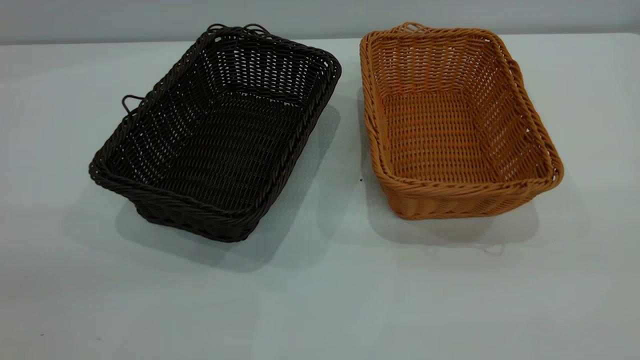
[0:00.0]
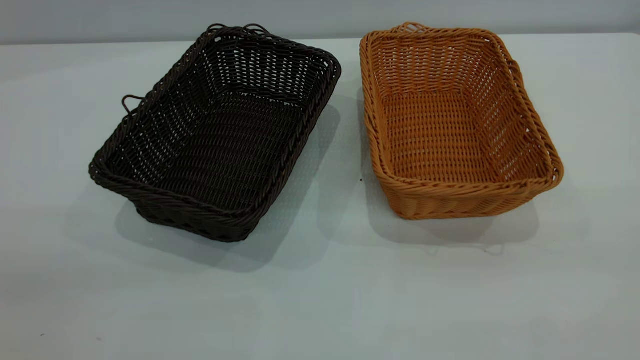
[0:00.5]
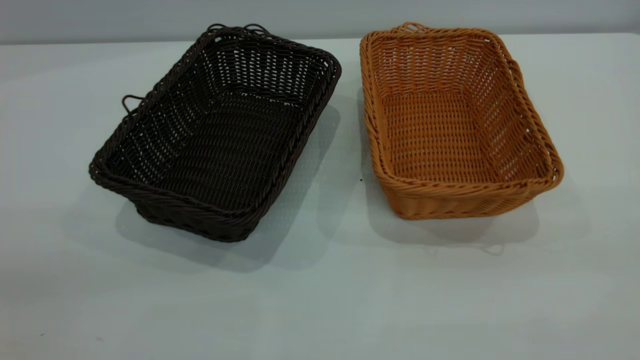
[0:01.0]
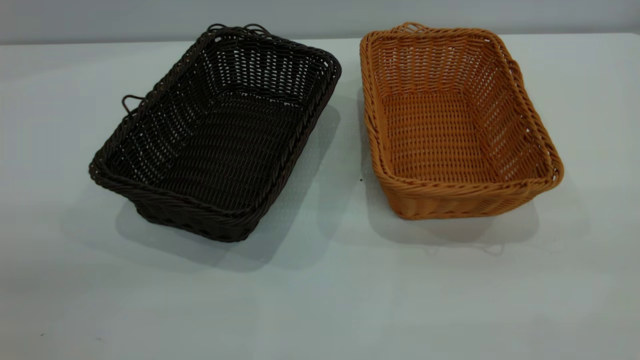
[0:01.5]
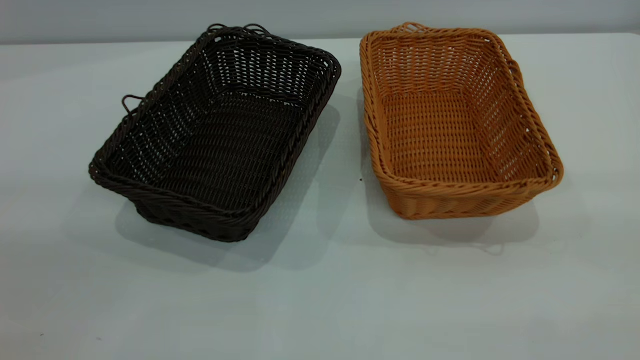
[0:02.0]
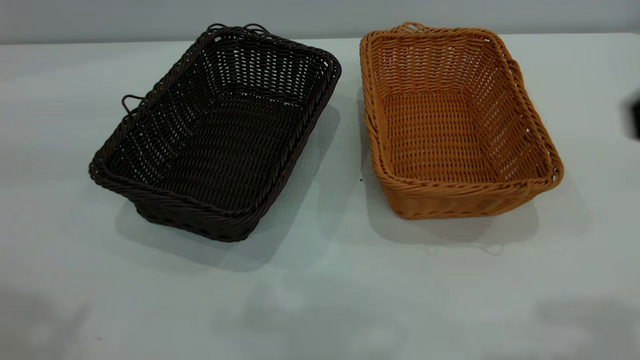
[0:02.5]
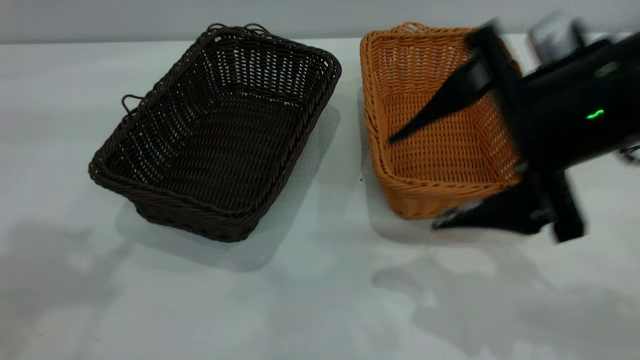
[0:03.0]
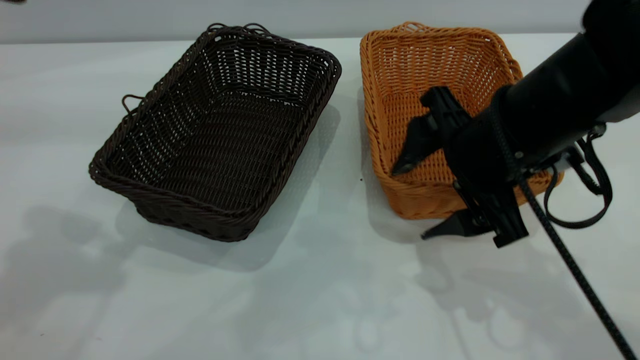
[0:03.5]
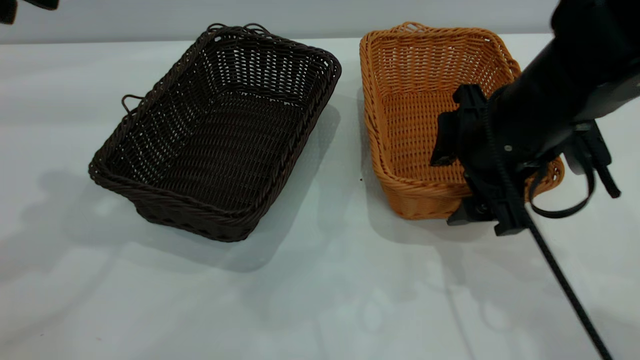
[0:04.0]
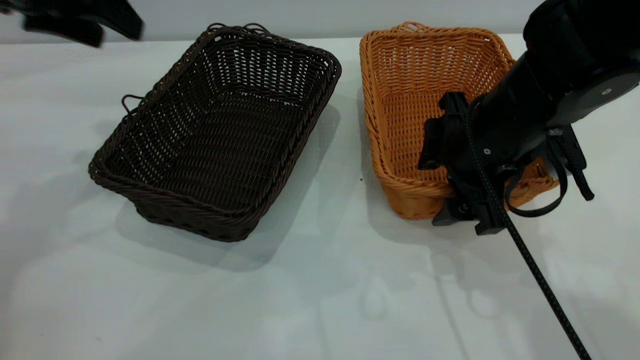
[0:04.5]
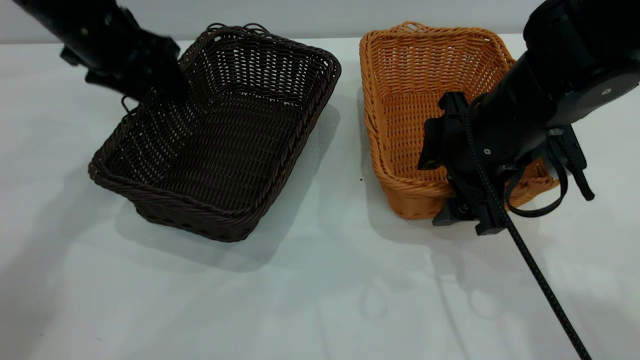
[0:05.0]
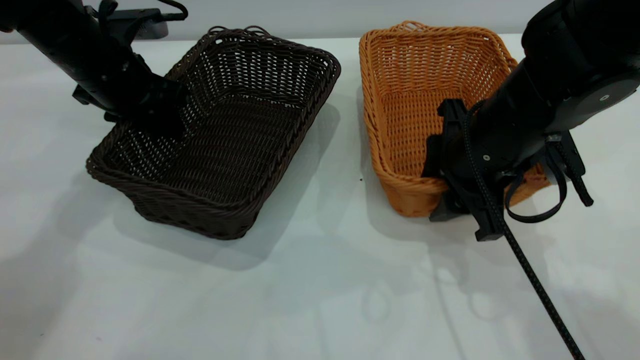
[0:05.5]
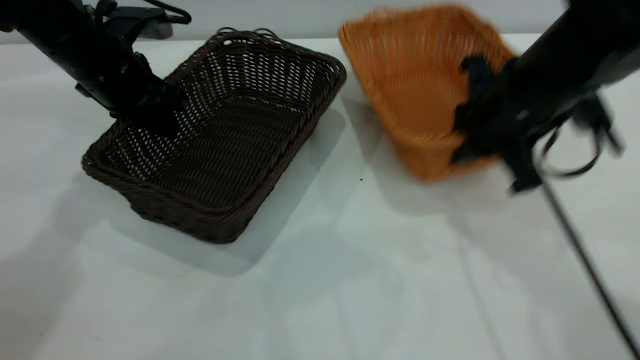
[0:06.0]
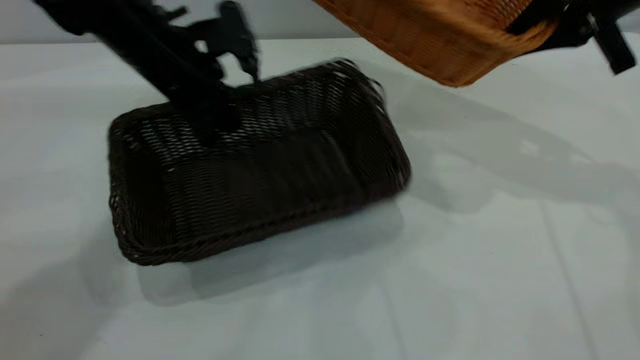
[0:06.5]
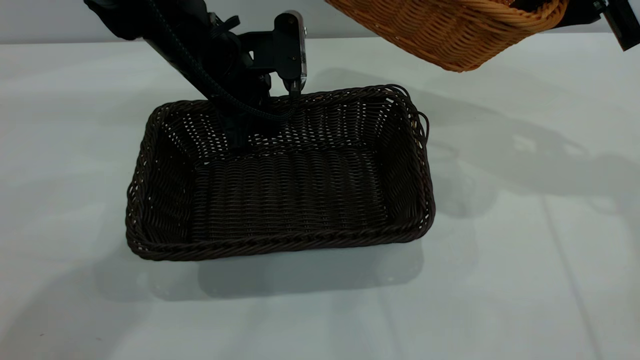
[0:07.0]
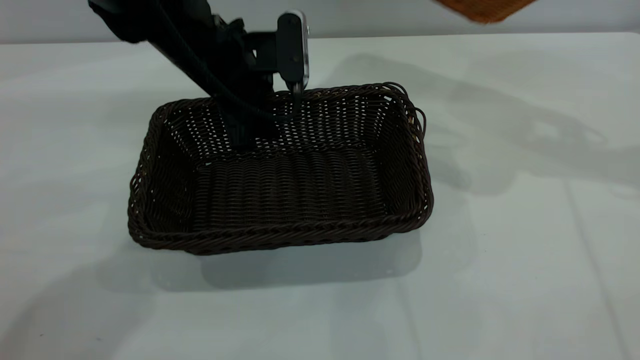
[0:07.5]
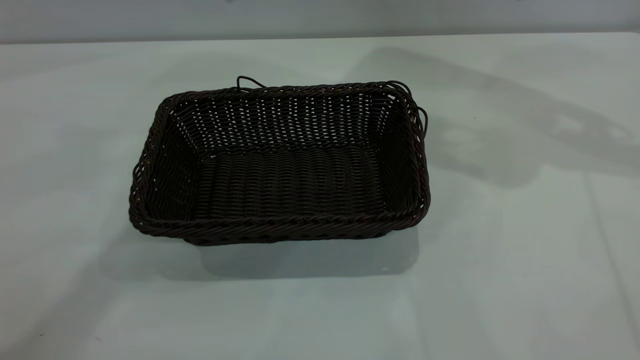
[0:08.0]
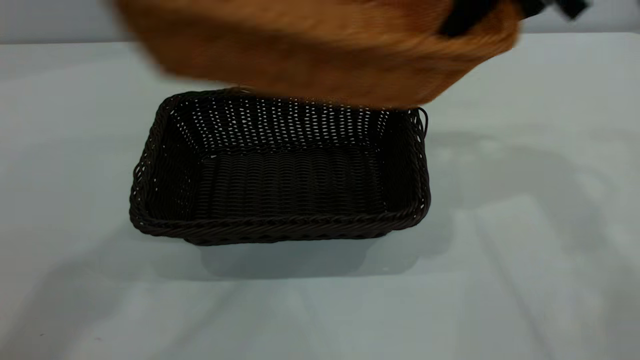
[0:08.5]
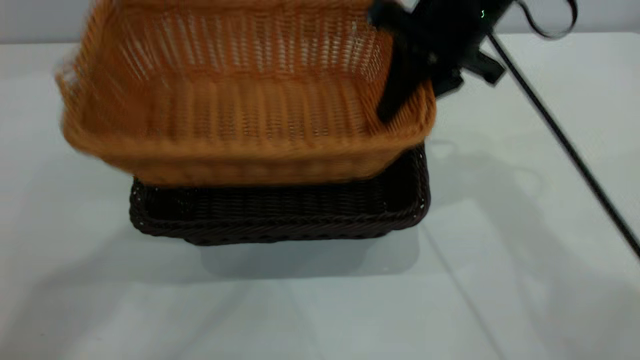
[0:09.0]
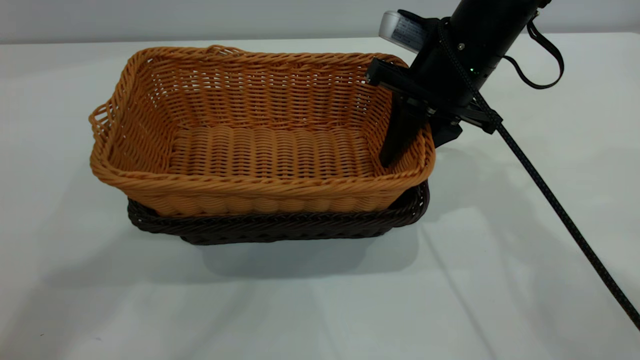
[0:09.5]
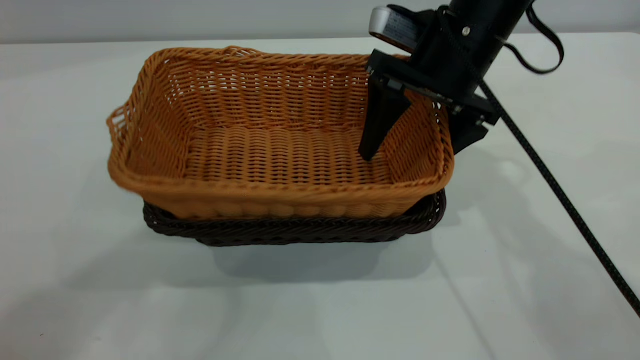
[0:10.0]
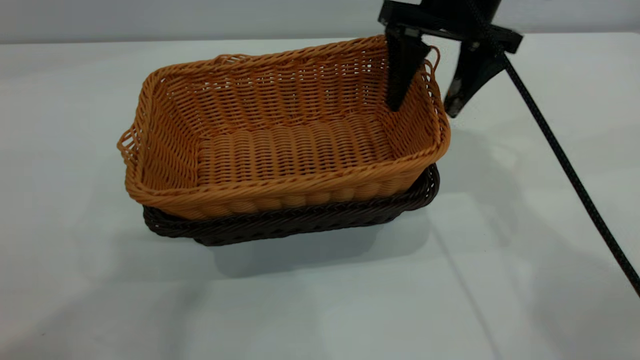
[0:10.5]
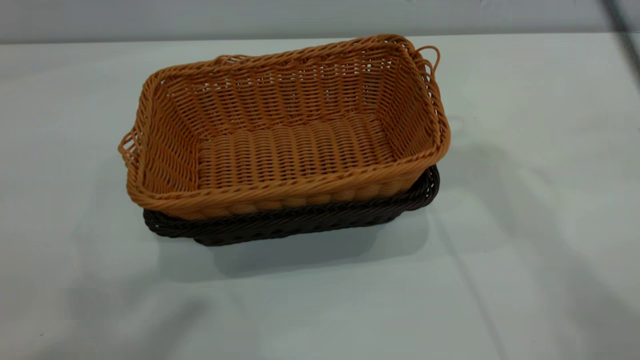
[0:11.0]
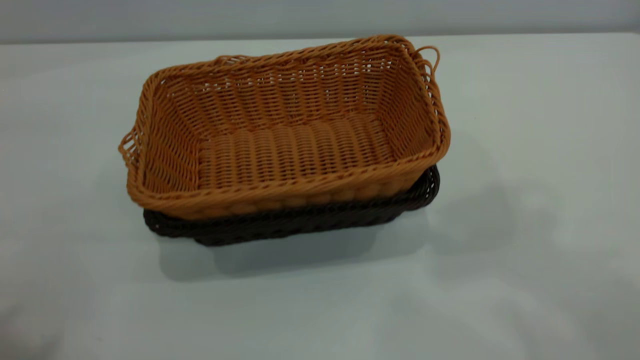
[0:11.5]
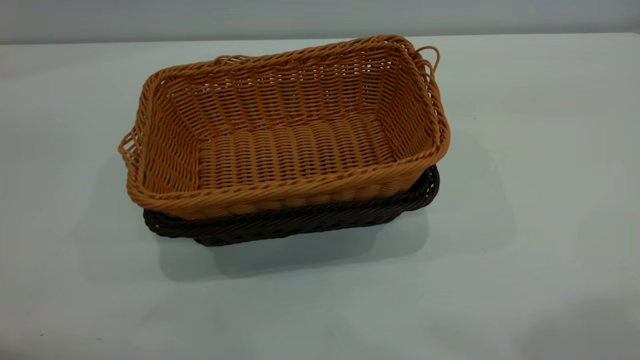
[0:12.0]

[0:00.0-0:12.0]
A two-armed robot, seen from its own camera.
Task of the whole recording: the left gripper grasp the black basket and place it in the center of the table, the right gripper grasp the brown basket and place it inside the black one.
Step, 0:00.0 to 0:06.0: Pick up the light basket with the right gripper.
Step, 0:06.5 to 0:07.5: Move the dark basket to the center of view.
Step, 0:08.0 to 0:10.5: Place the light basket on the dark basket.
0:02.0 to 0:04.0: The left gripper travels forward by about 30 cm; the right gripper heads forward, downward and to the left, covering about 35 cm.
0:04.0 to 0:06.0: The left gripper heads downward and forward, covering some 20 cm, and closes its fingers. Meanwhile the right gripper shifts by some 5 cm, and closes.
0:06.0 to 0:08.0: The right gripper shifts about 20 cm upward, to the right and forward, while the left gripper heads upward and to the right, covering about 25 cm, and opens.
0:08.0 to 0:10.0: The left gripper travels upward and backward by some 25 cm. Meanwhile the right gripper shifts about 25 cm to the left and downward, and opens up.
0:10.0 to 0:12.0: The right gripper shifts roughly 40 cm upward and backward, while the left gripper goes roughly 20 cm backward and to the left.
